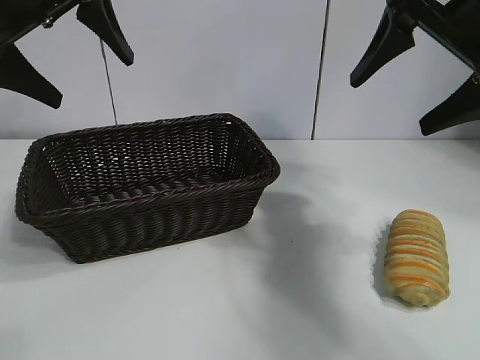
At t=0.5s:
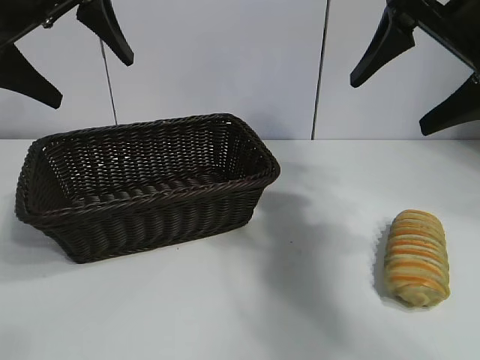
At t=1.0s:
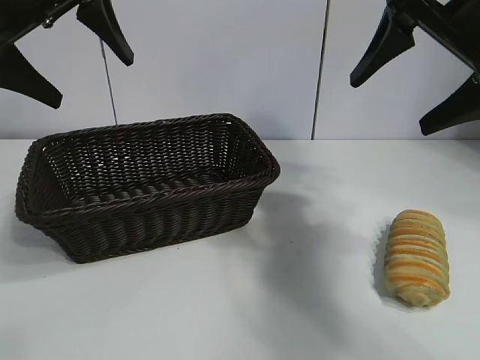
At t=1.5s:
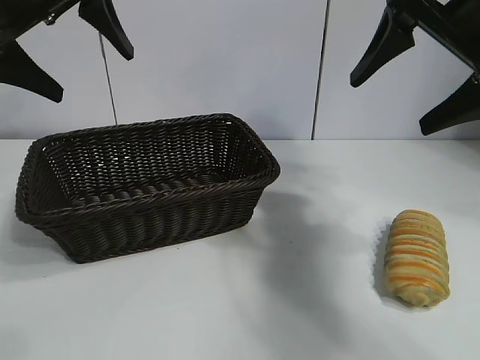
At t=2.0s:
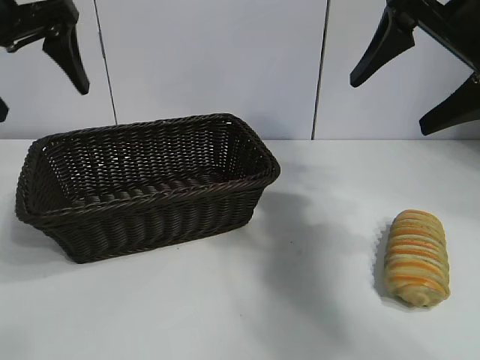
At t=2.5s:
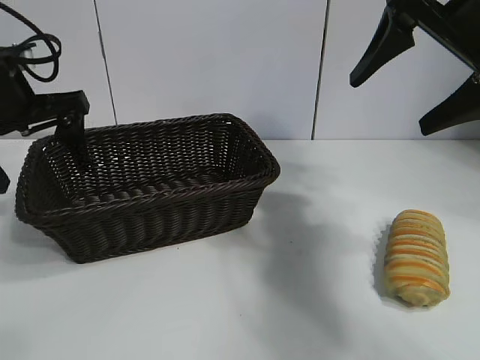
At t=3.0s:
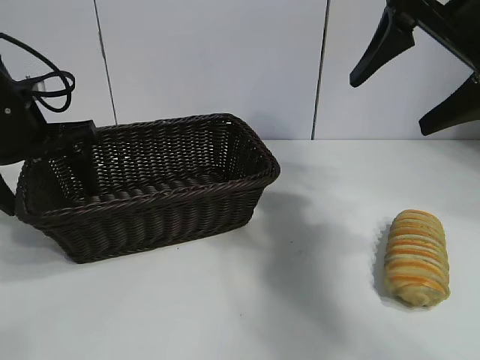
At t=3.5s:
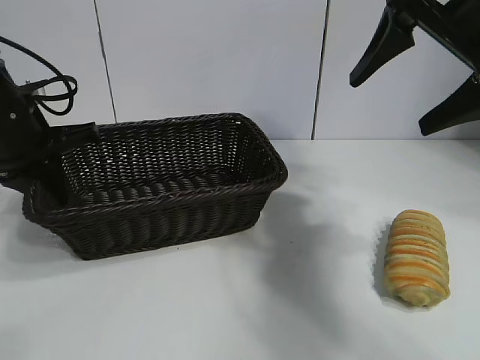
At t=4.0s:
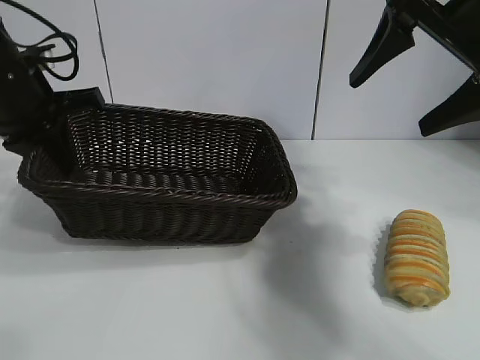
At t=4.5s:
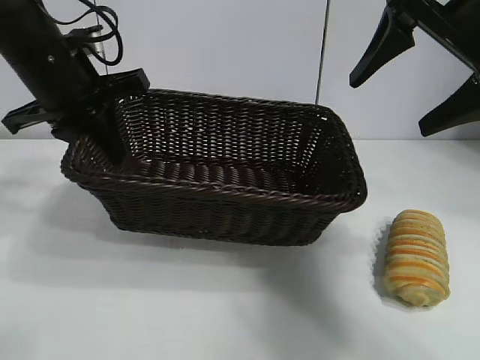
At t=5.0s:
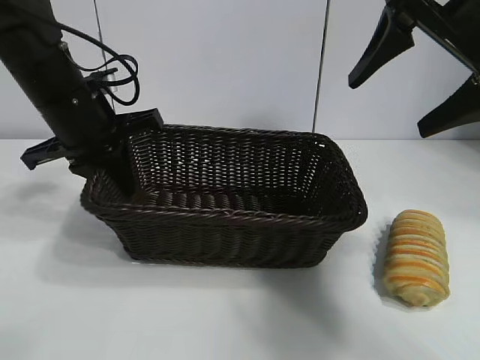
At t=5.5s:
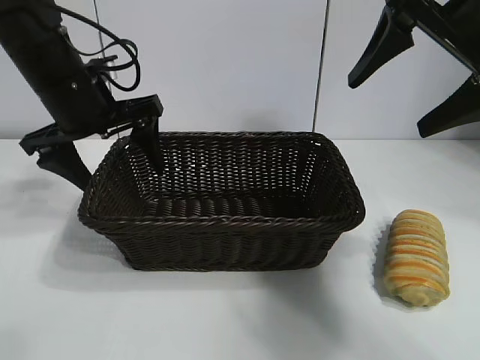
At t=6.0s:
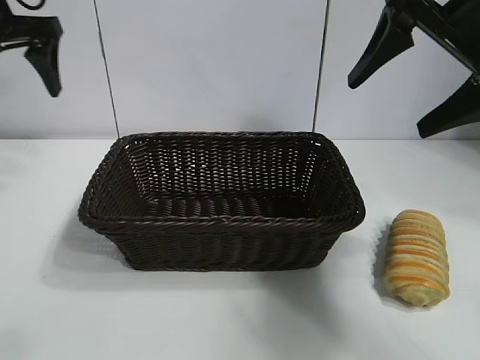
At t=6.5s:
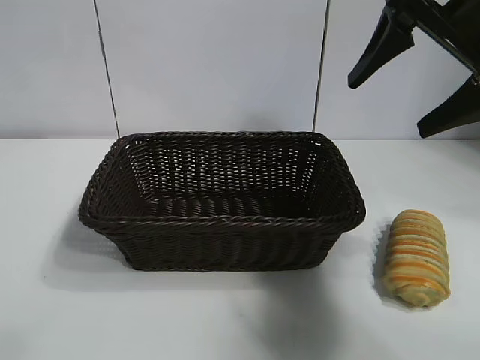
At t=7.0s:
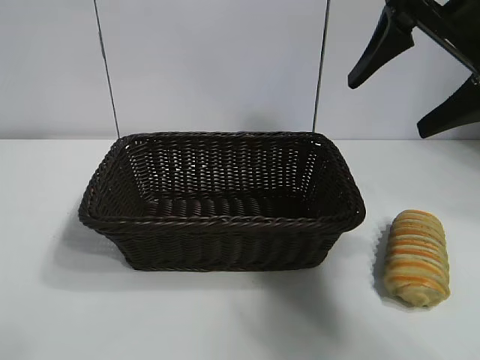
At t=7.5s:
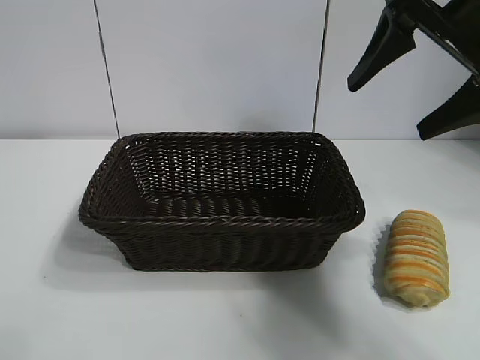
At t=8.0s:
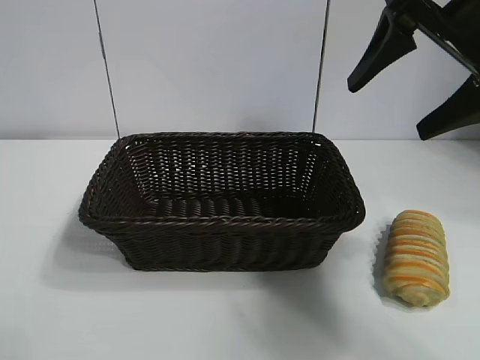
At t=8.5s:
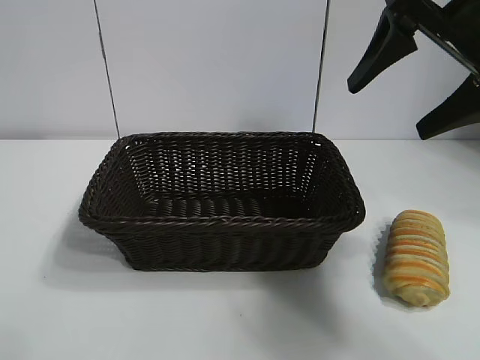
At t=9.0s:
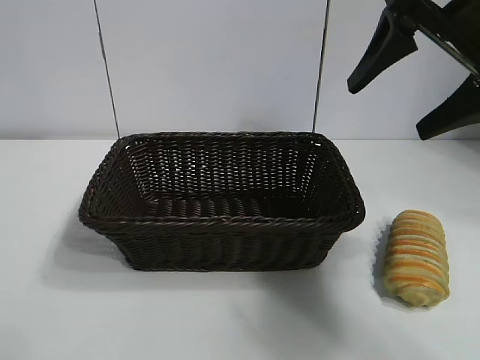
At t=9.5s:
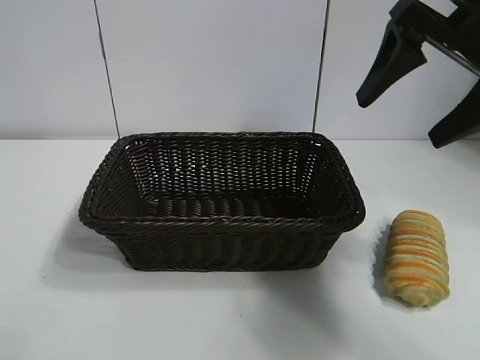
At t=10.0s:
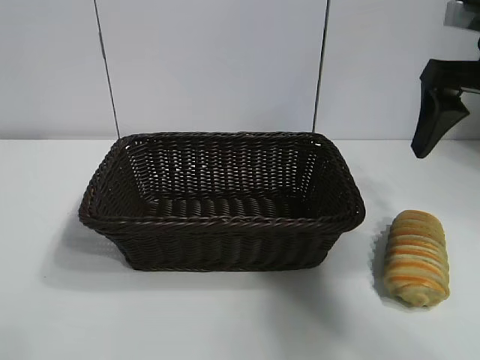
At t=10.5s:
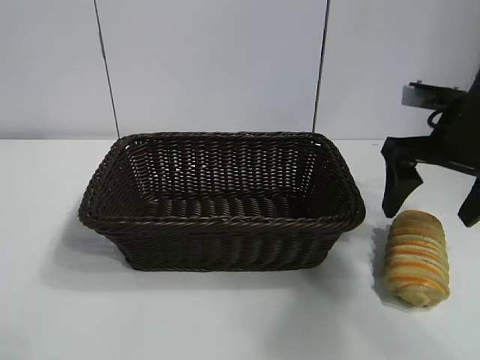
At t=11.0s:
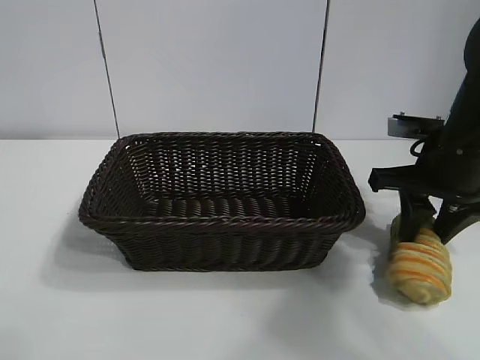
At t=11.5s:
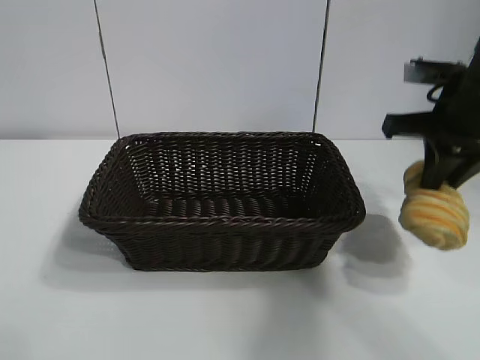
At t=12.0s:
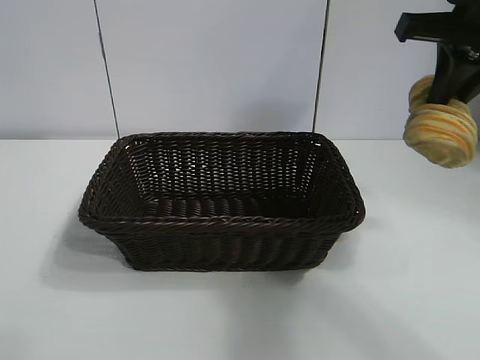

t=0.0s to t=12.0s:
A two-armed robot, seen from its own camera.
Task of the whole recording: pick up the long bread and put it into the basket.
Step, t=1.5s to t=3.0s: Grasp the basket with the left gripper.
Step, t=4.0s to t=5.0s: Place the basket in the center of the table with the left gripper.
Step, t=5.5s to t=11.0s: Grasp the long bread with right gripper.
